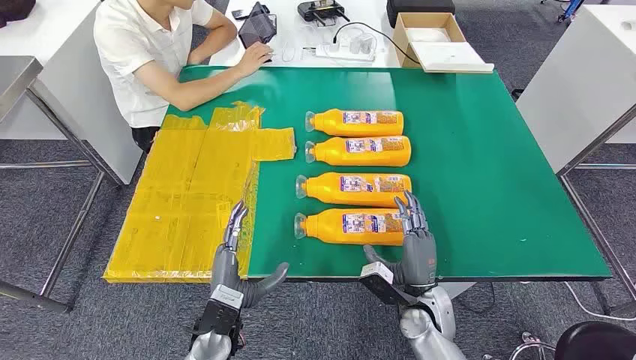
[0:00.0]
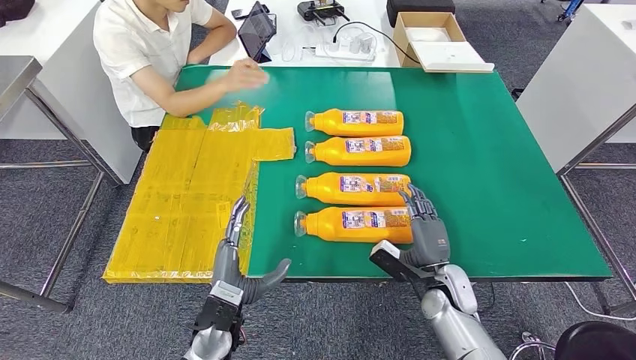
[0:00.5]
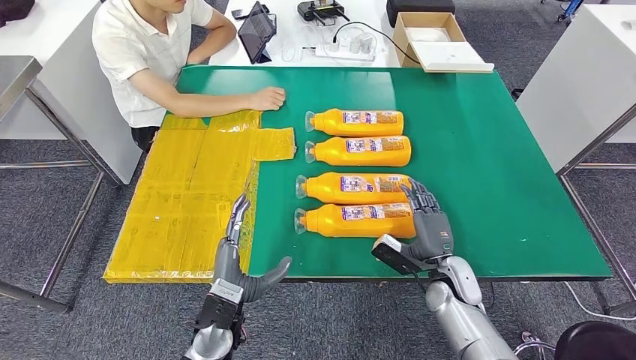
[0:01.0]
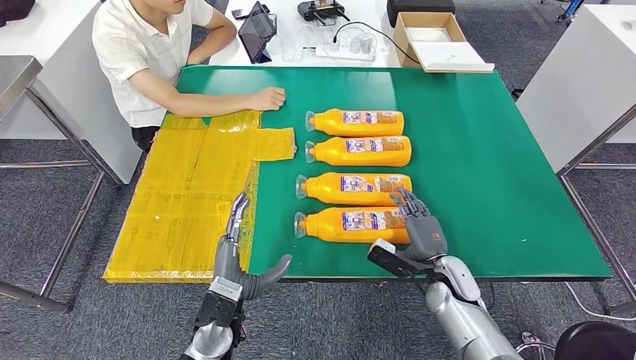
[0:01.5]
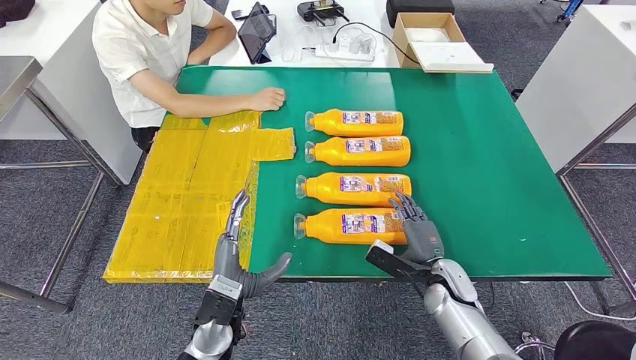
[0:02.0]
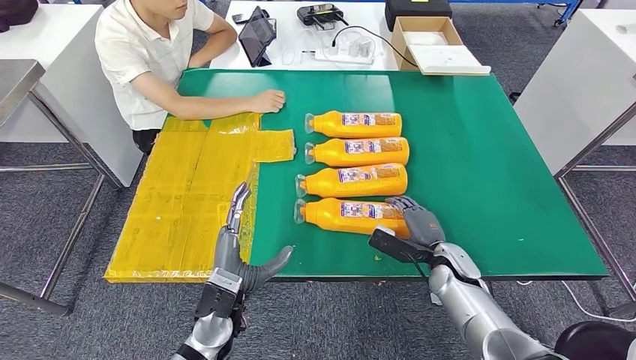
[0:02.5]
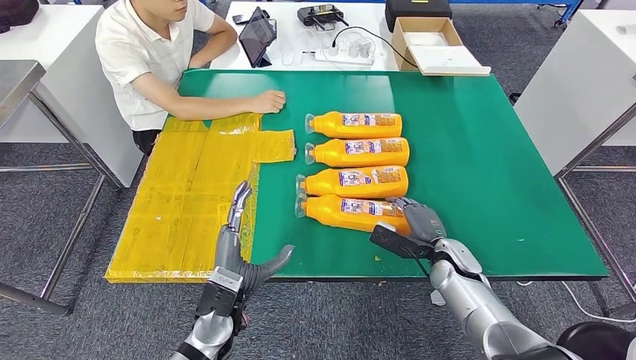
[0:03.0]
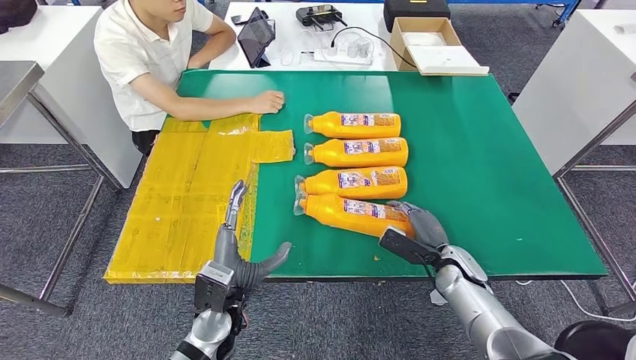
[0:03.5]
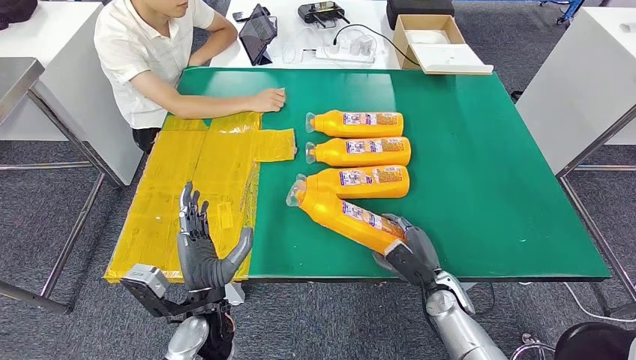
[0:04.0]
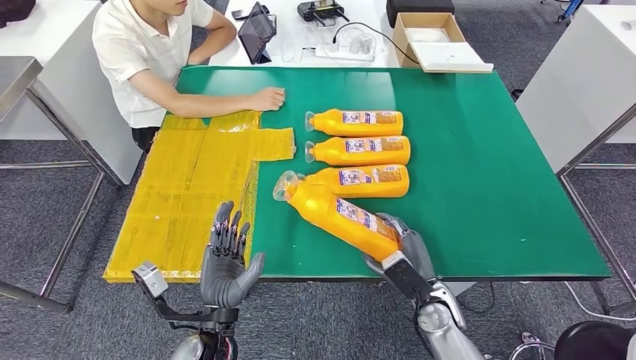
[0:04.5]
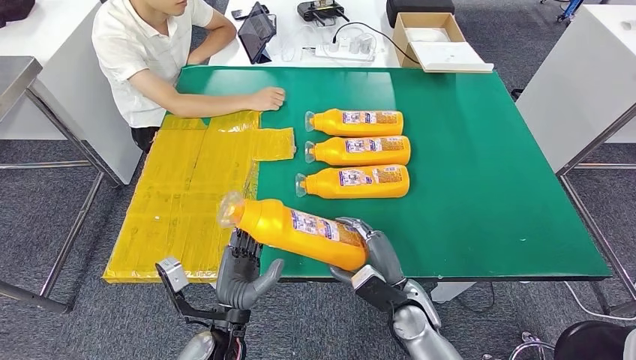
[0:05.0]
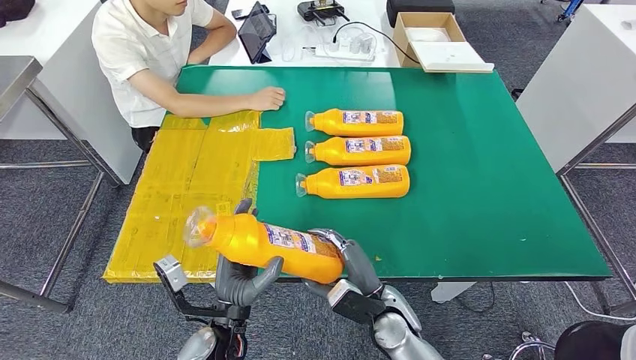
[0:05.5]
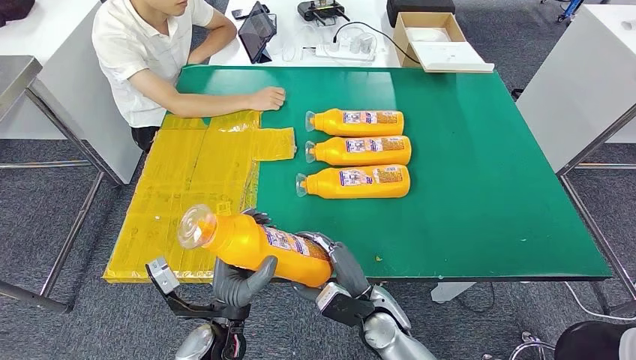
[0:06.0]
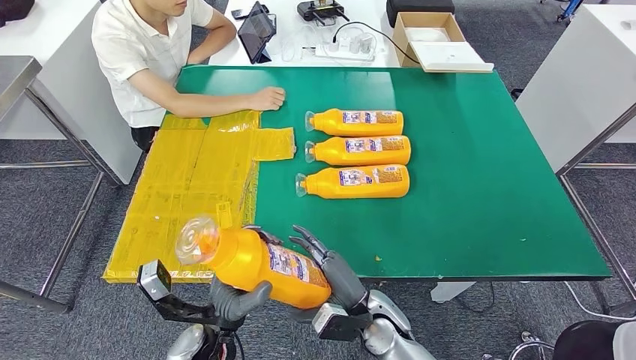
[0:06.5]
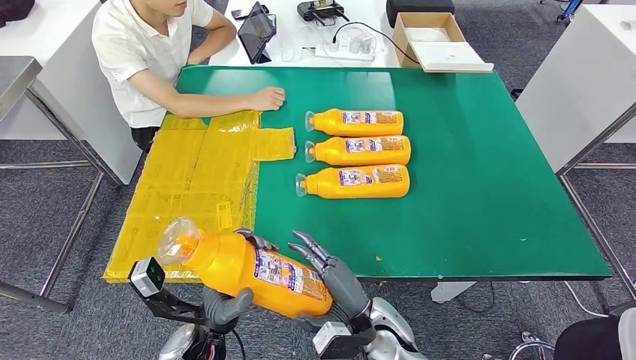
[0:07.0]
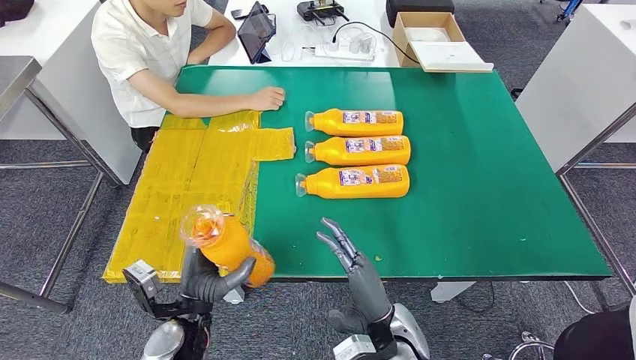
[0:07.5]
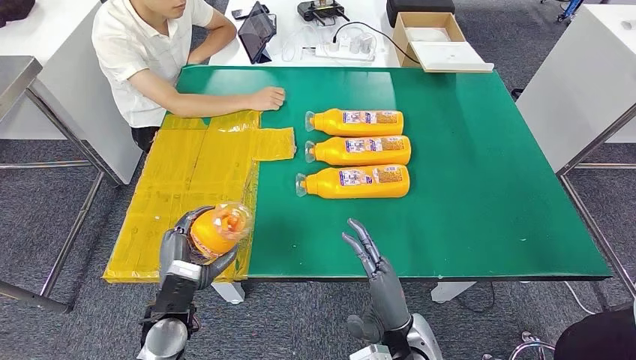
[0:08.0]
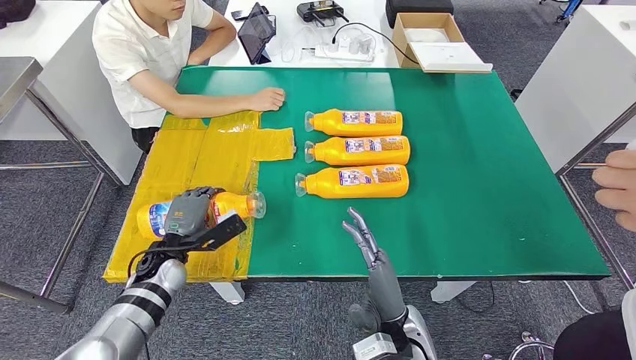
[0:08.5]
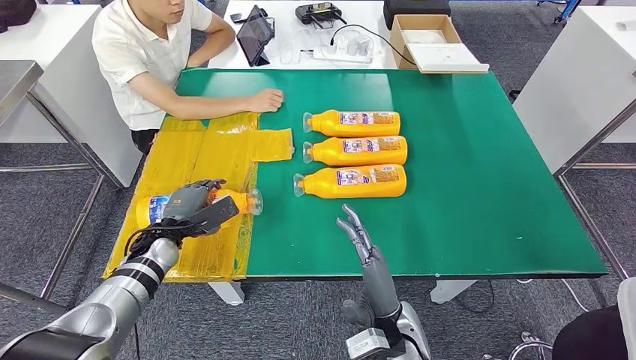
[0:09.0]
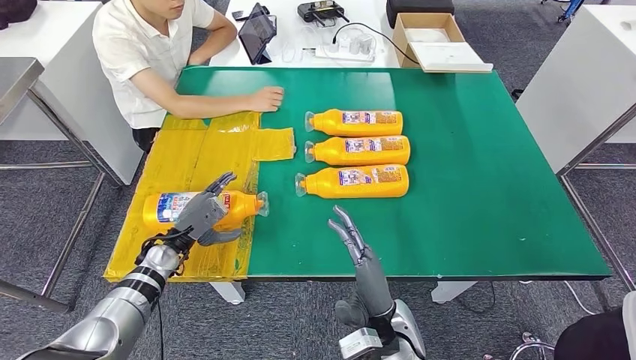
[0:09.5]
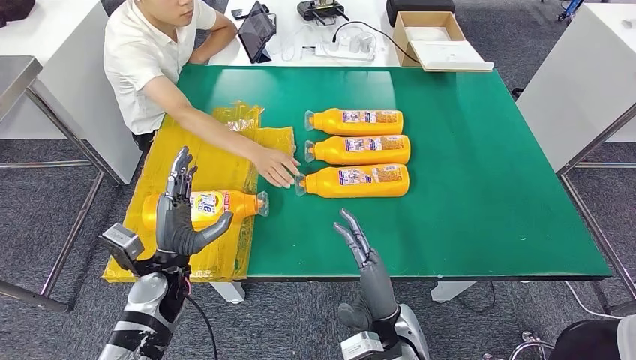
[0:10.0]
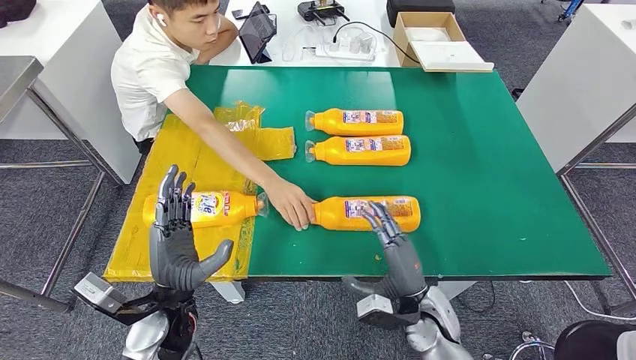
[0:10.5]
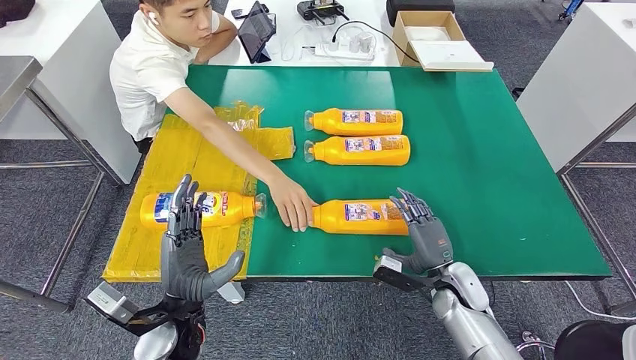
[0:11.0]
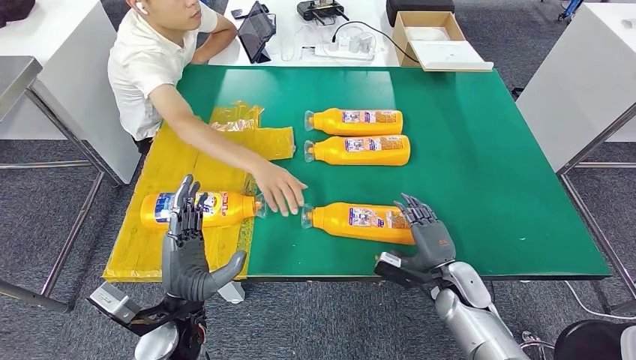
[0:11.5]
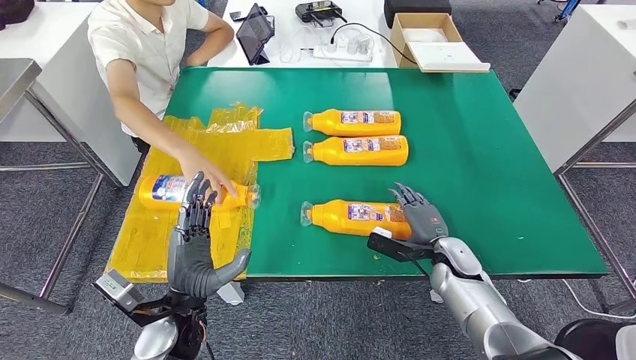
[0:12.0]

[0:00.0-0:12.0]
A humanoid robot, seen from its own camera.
Step, 0:00.0 to 0:06.5: Take the fast-moving consumer goods bottle from the table.
Step, 0:07.5 to 0:09.5: Flip the fast-moving consumer goods bottle to the front side.
0:04.0 to 0:06.0: The right hand is displaced to the left by some 15 cm.
0:06.0 to 0:08.0: The right hand shifts some 5 cm backward; the left hand moves to the left, some 10 cm.
0:08.0 to 0:10.0: The left hand heads forward, covering approximately 5 cm.

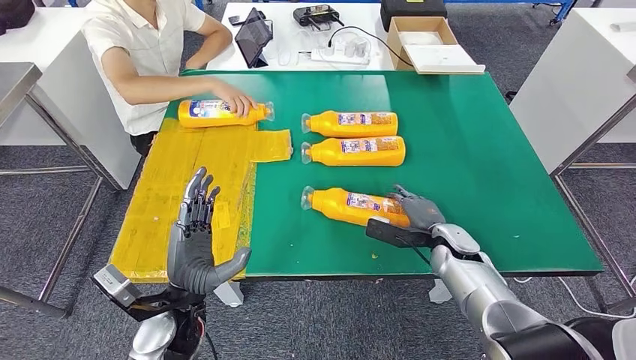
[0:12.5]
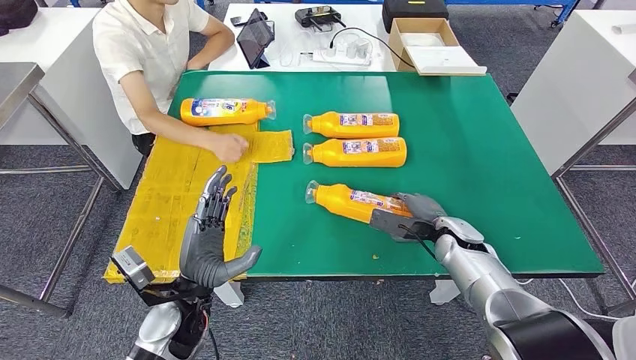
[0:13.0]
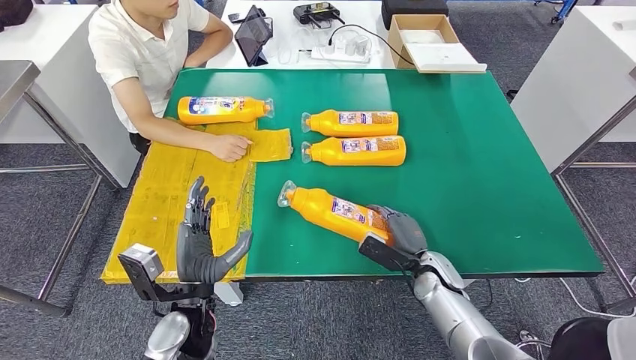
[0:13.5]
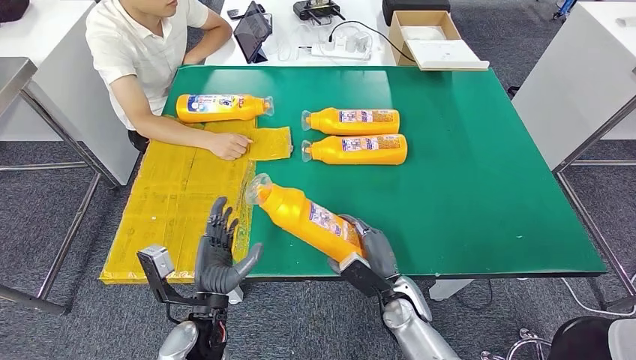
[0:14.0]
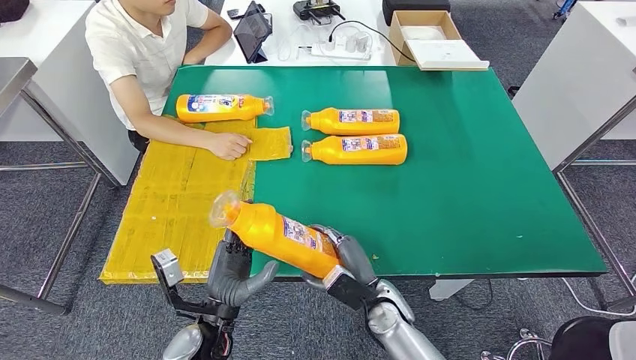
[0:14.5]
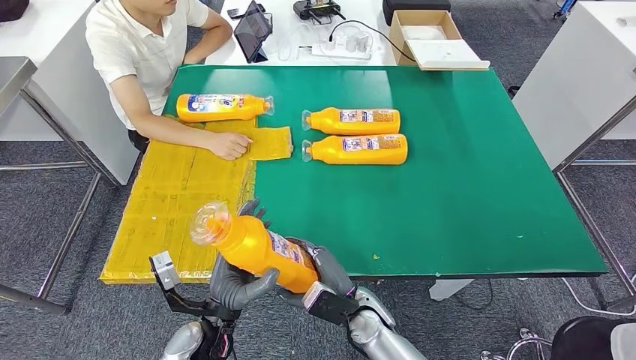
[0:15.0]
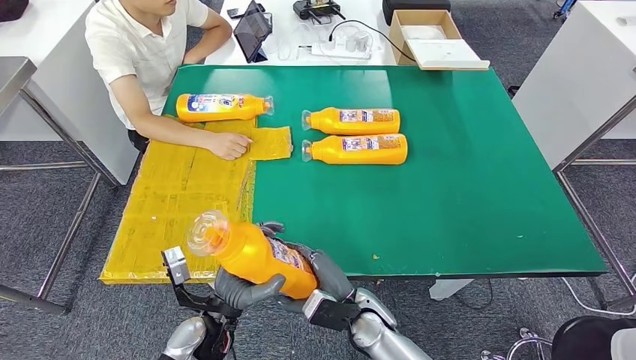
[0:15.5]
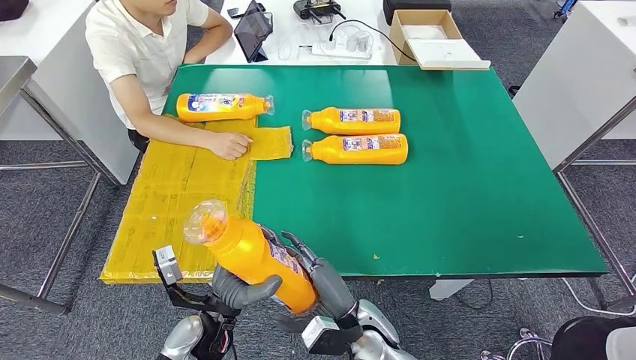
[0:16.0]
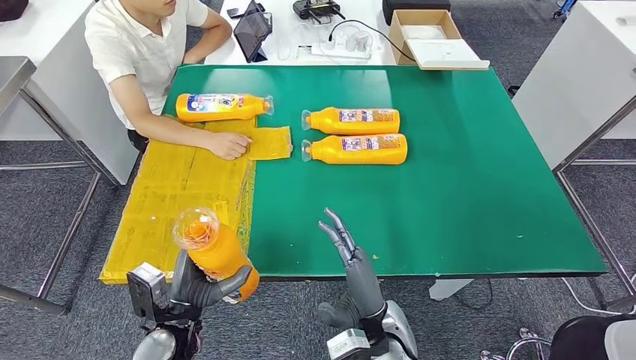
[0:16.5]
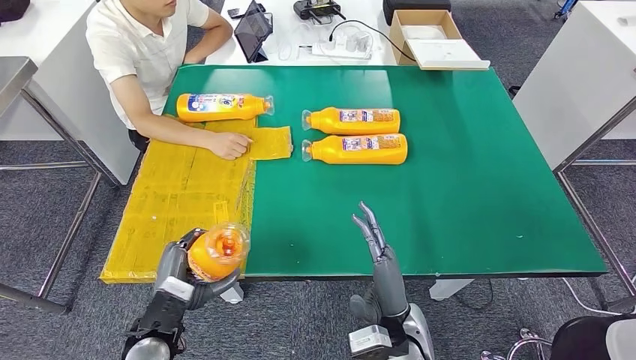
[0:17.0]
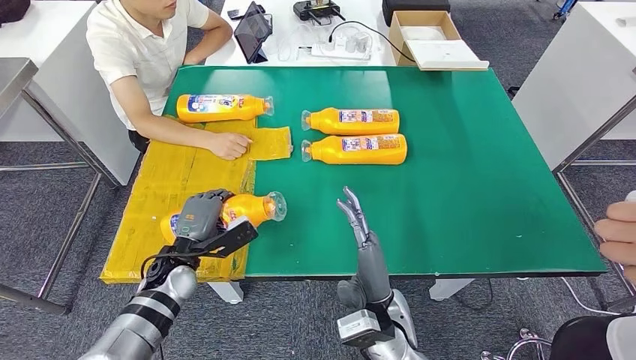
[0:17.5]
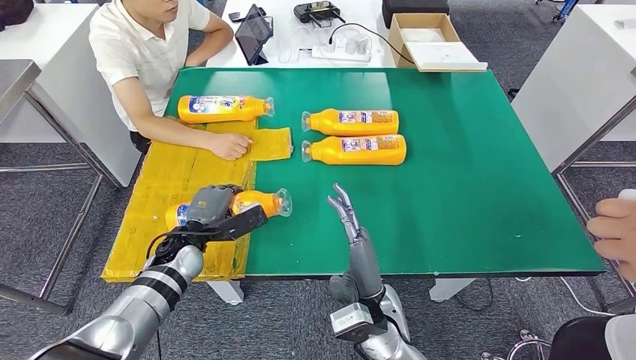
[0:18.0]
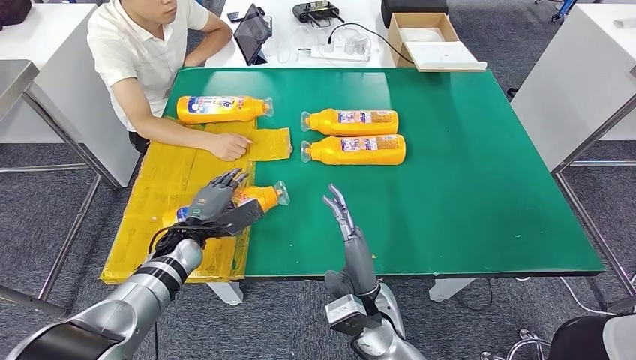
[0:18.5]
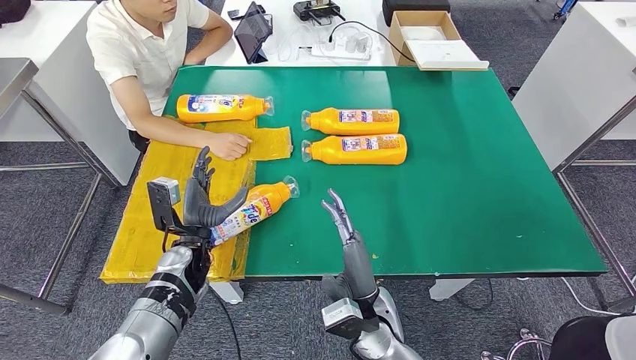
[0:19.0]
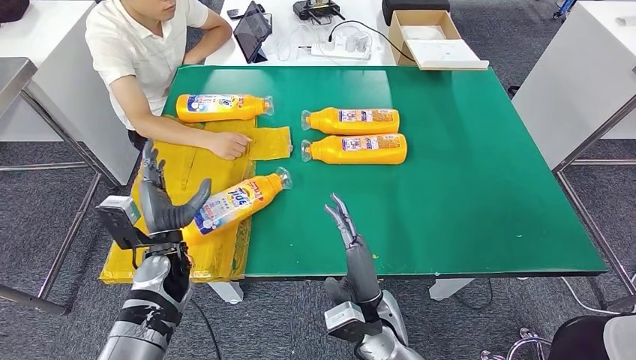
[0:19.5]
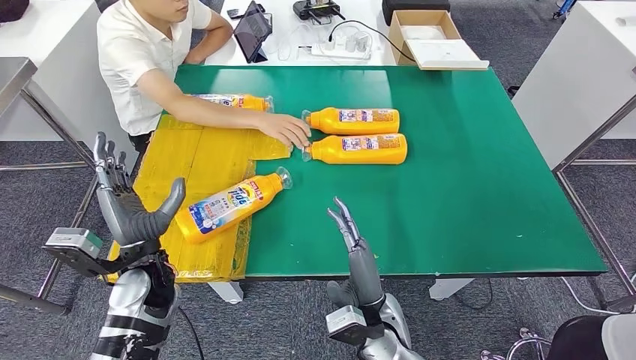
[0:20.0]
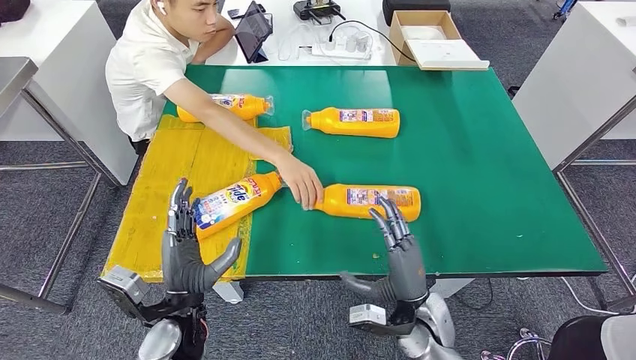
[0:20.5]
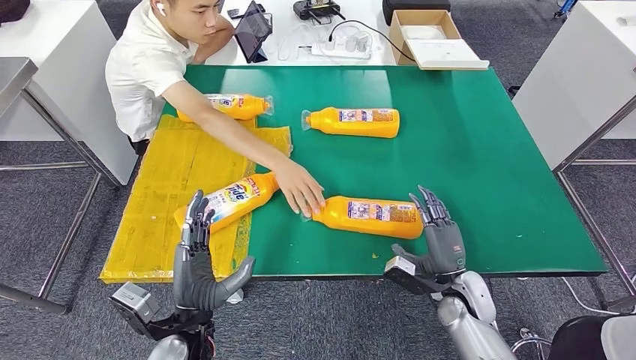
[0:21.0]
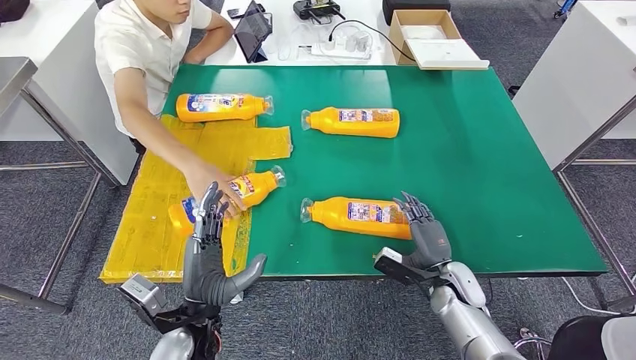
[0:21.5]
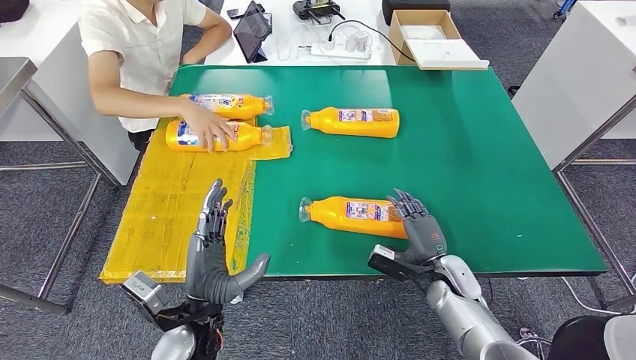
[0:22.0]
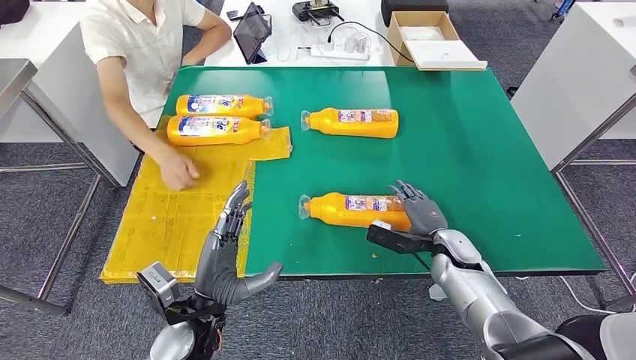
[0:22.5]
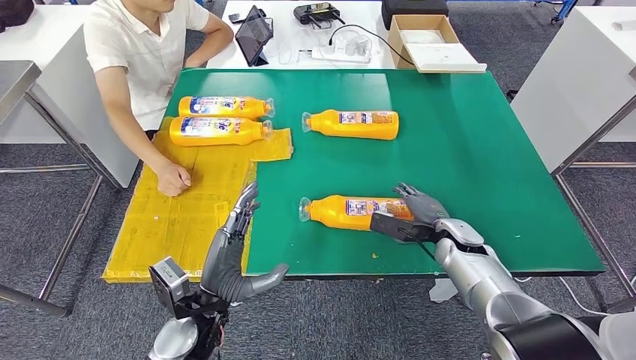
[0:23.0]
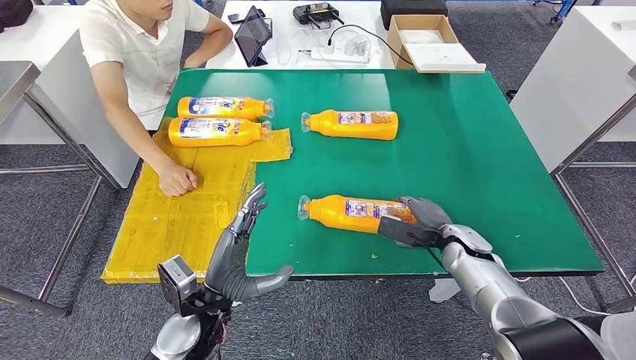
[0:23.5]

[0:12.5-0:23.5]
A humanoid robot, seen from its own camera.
Step, 0:12.5 to 0:15.0: Pick up the fast-moving consumer goods bottle from the table.
Step, 0:15.5 to 0:19.5: Flip the fast-moving consumer goods bottle to the front side.
0:14.5 to 0:16.0: The right hand moves roughly 5 cm.
